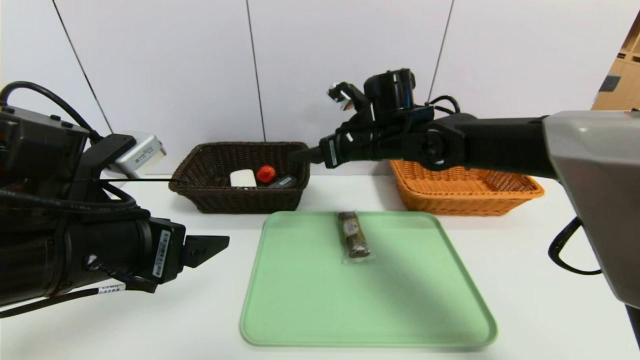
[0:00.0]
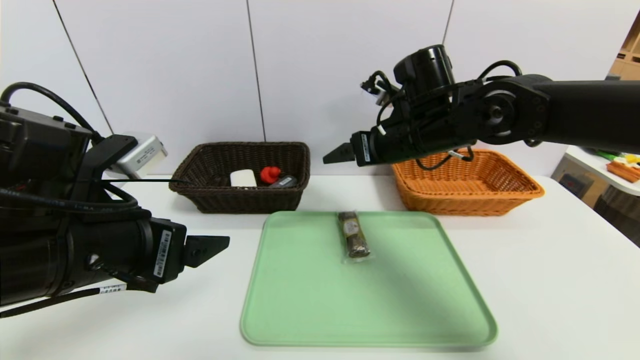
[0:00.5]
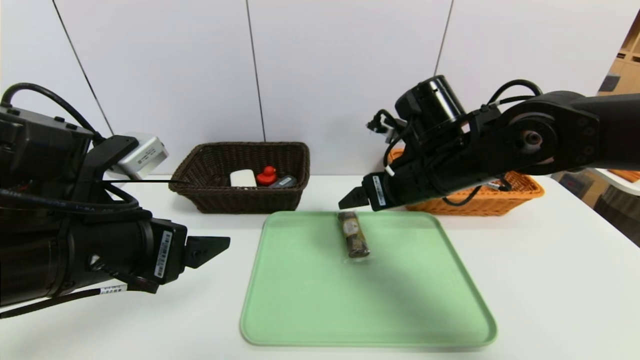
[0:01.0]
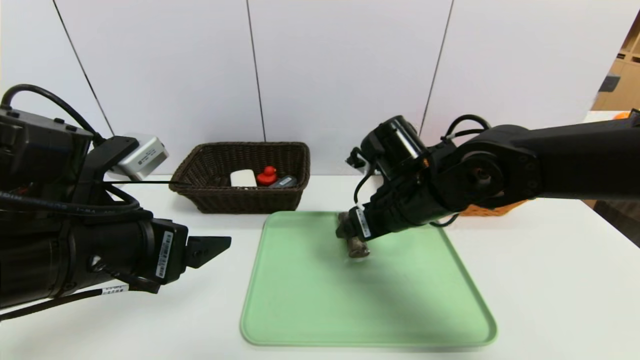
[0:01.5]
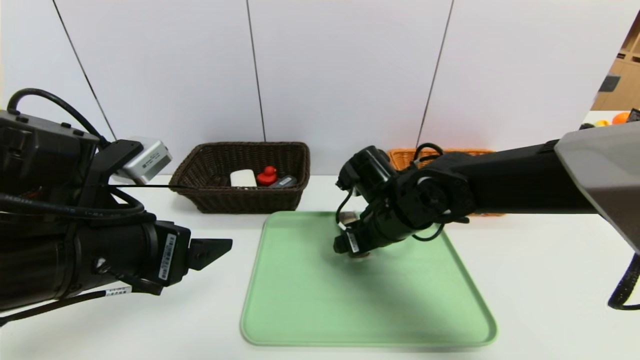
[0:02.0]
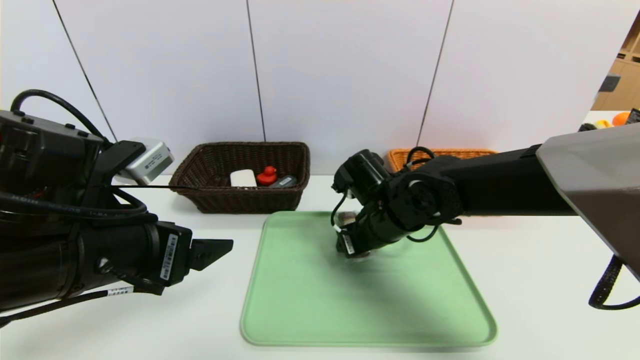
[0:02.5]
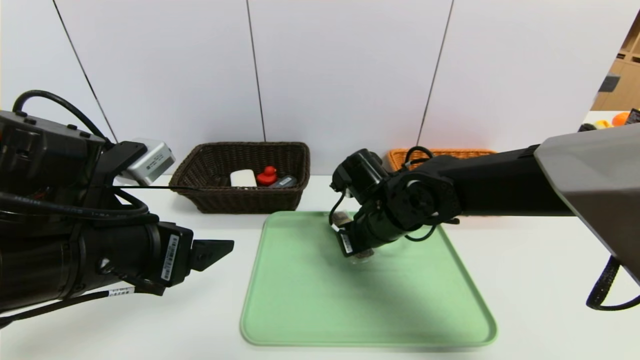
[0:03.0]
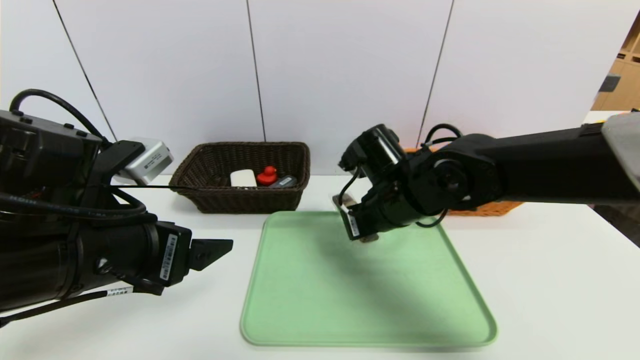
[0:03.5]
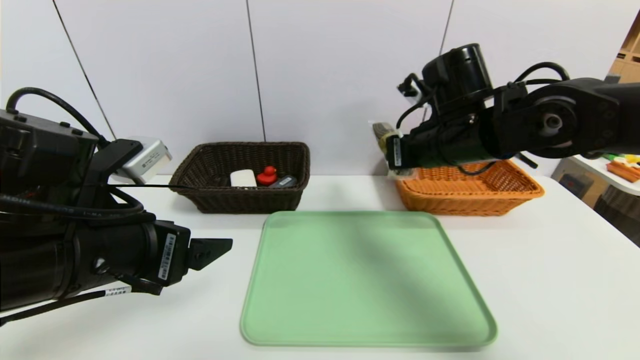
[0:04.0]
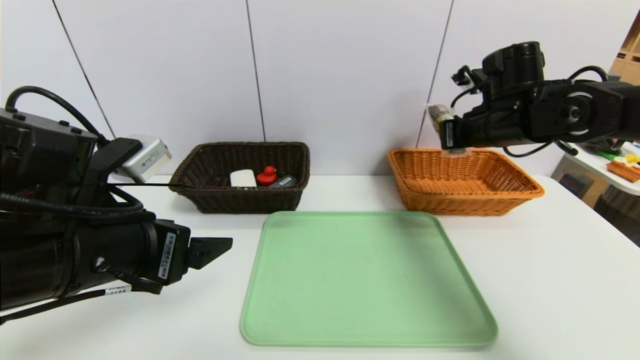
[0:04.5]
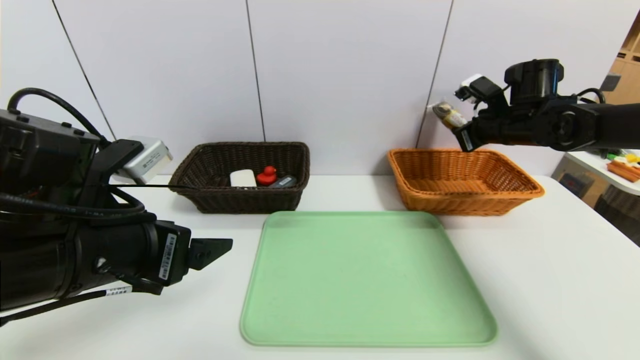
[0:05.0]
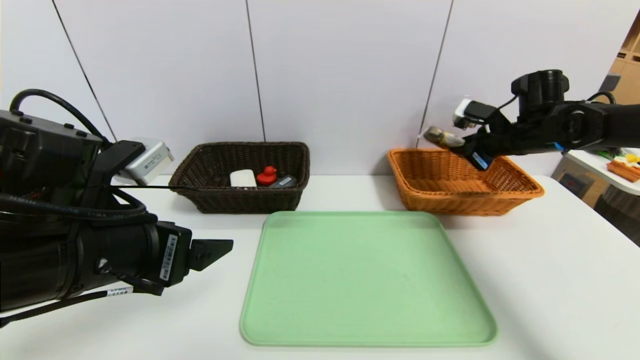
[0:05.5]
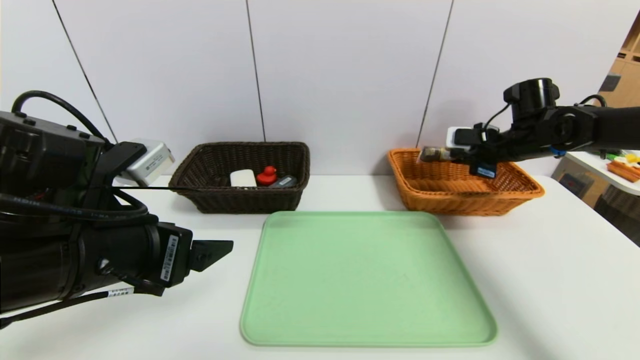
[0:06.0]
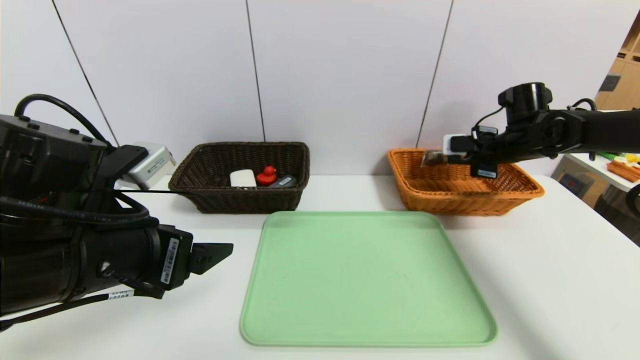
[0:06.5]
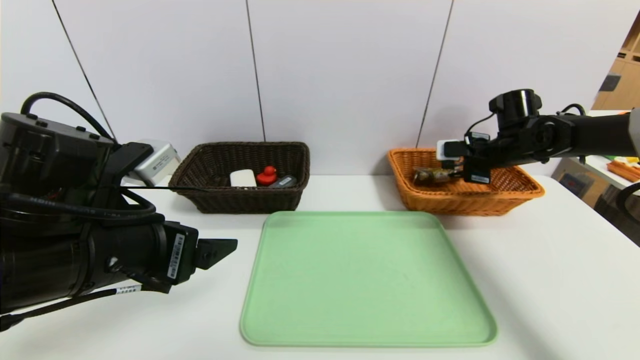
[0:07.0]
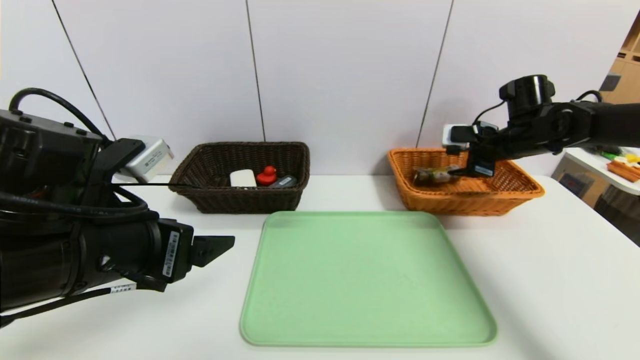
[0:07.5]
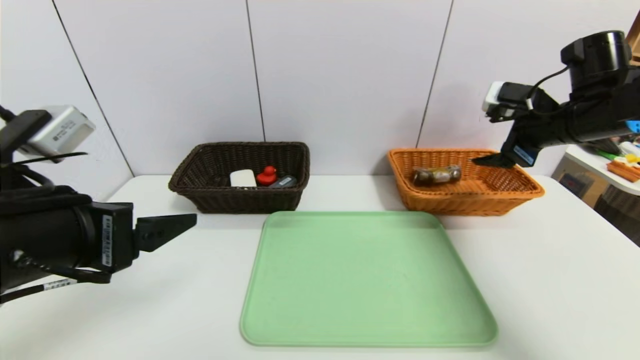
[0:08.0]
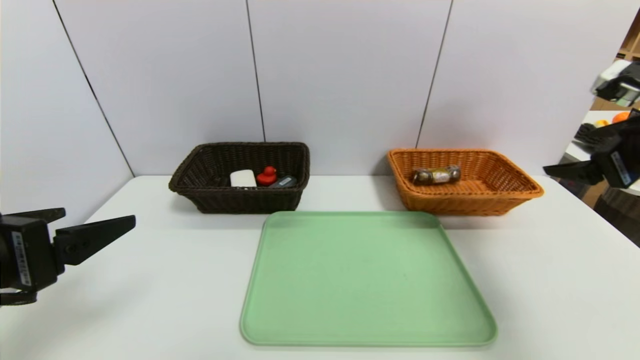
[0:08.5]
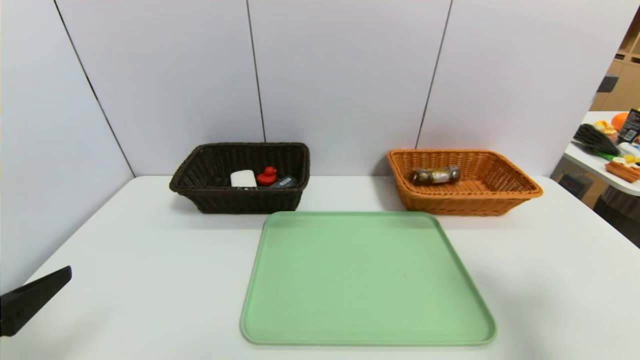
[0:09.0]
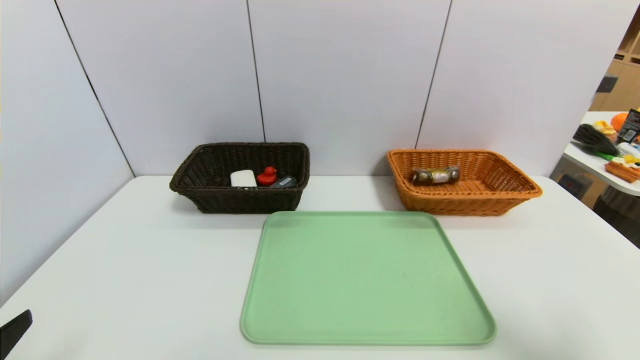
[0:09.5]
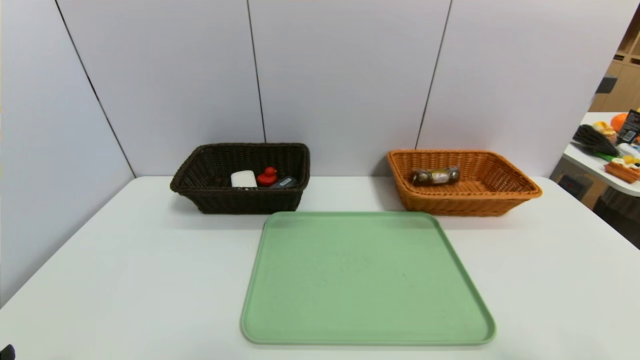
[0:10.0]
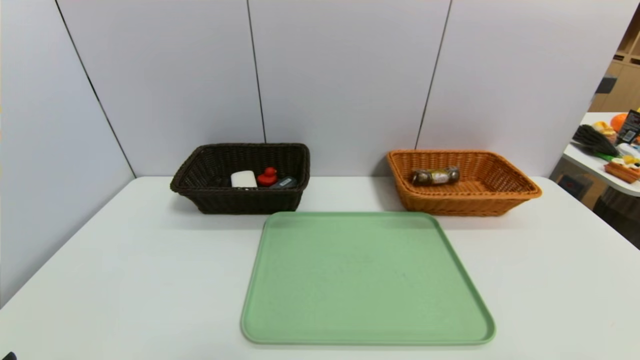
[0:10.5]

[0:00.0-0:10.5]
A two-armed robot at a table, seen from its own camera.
Task of the whole recording: place the food in the right basket with the right gripper, and place the non food items in the left basket with the left gripper.
Step, 0:01.0 to 0:07.5: Grasp the chocolate and put it in the right basket.
0:00.0 to 0:02.0: The right gripper shifts roughly 10 cm backward and downward.
0:02.0 to 0:04.0: The right gripper shifts roughly 15 cm upward and to the right, and closes its fingers.
0:04.0 to 0:06.5: The right gripper is displaced to the right and forward by some 20 cm.
0:06.5 to 0:08.5: The right gripper moves backward and upward, about 25 cm, and opens its fingers. Meanwhile the left gripper shifts some 10 cm to the left and backward.
0:08.5 to 0:10.5: The left gripper travels backward and downward by approximately 15 cm. The right gripper shifts some 25 cm backward.
